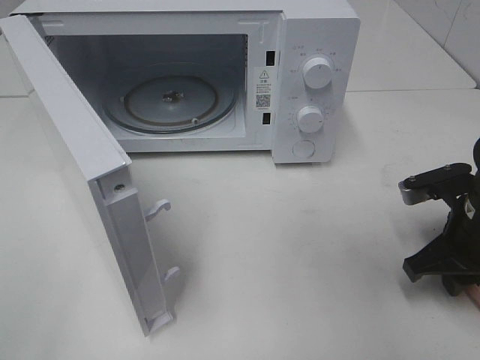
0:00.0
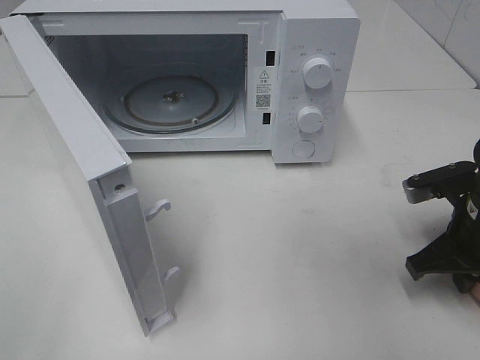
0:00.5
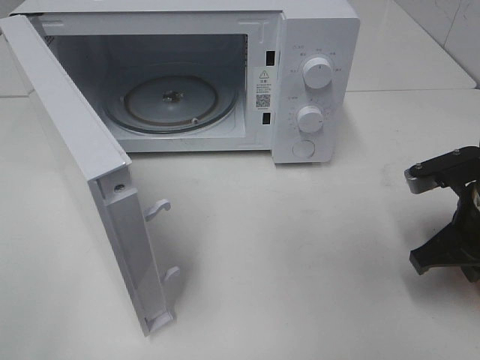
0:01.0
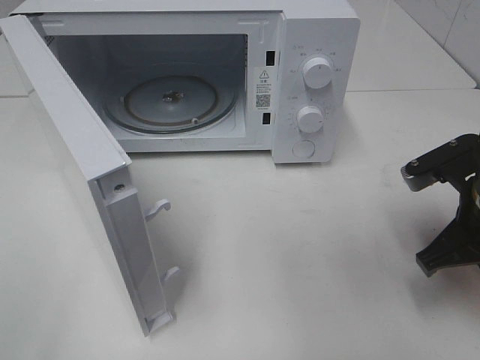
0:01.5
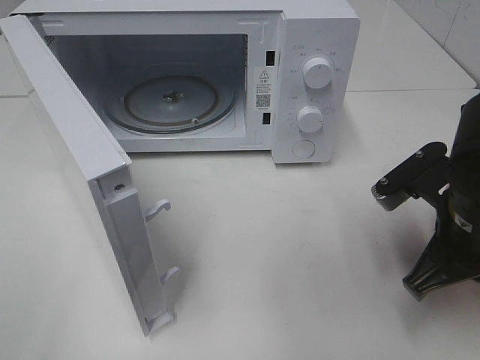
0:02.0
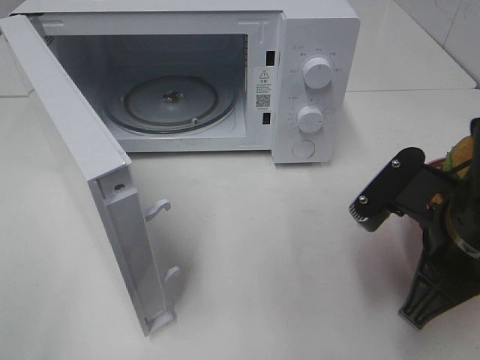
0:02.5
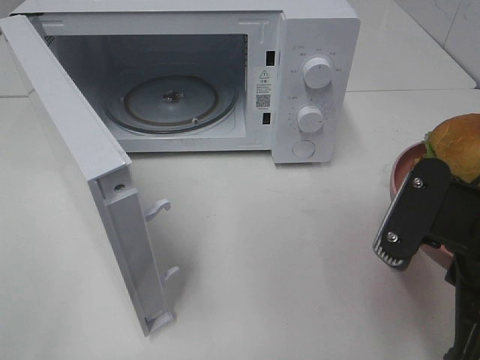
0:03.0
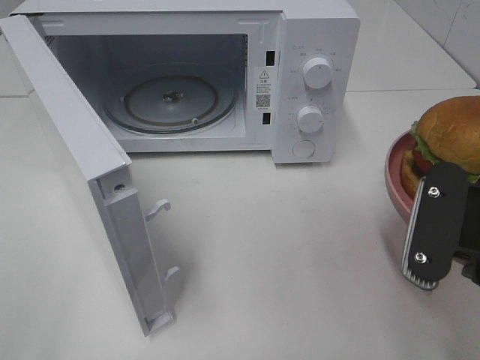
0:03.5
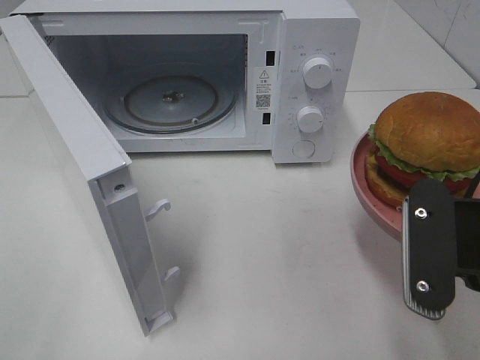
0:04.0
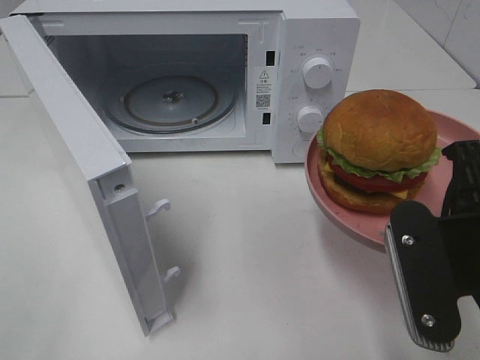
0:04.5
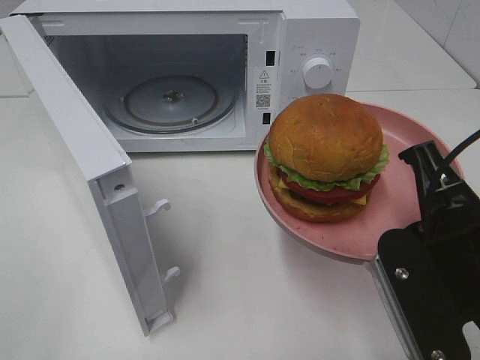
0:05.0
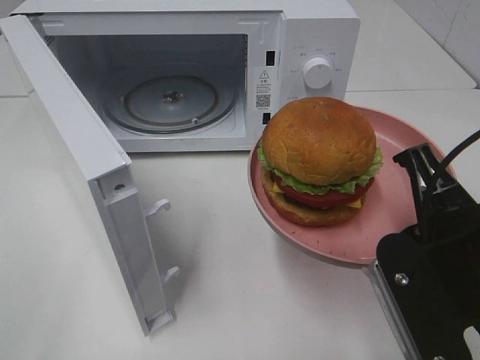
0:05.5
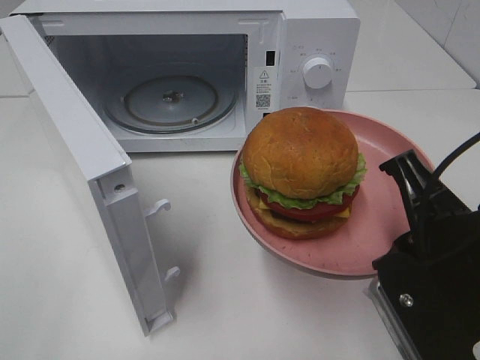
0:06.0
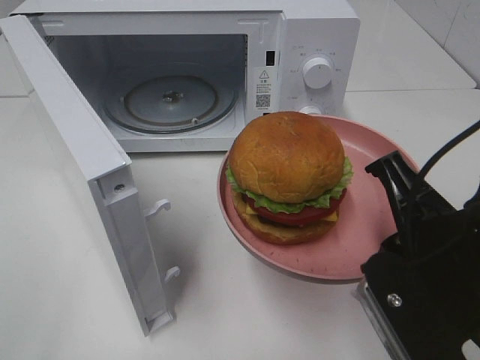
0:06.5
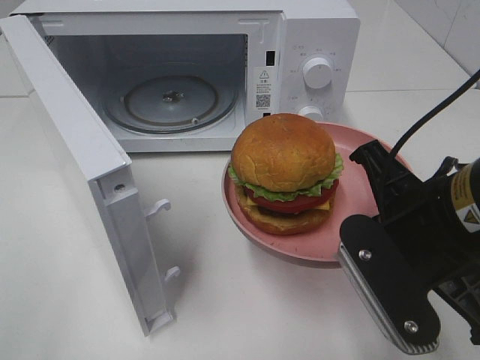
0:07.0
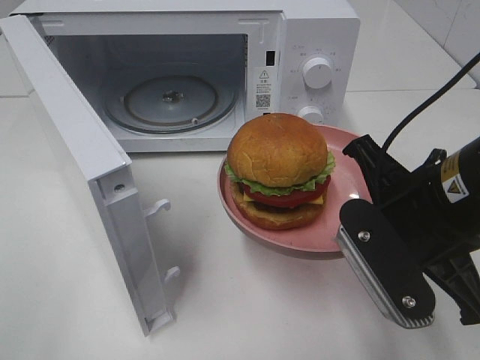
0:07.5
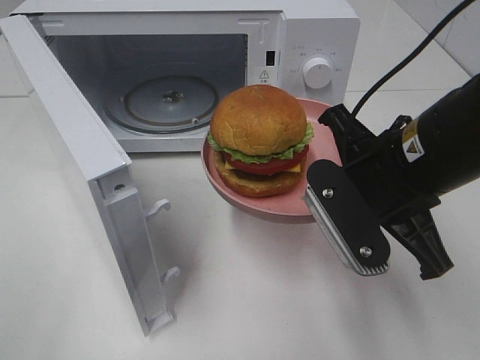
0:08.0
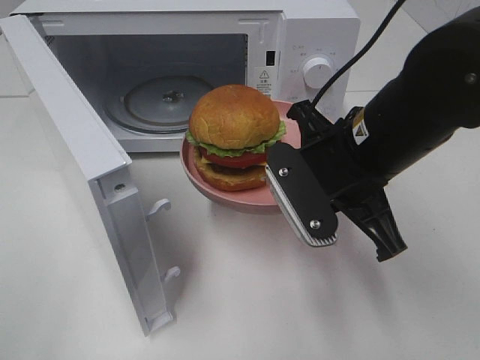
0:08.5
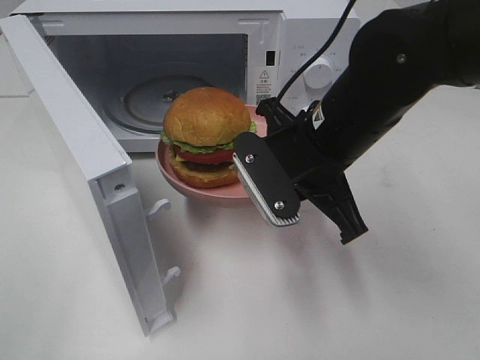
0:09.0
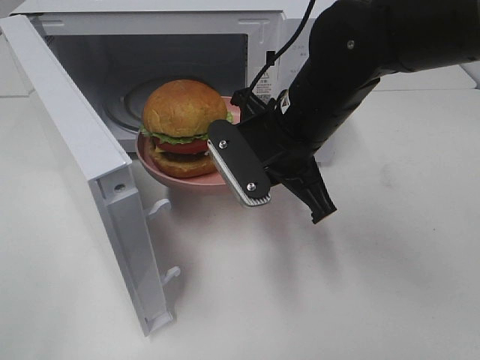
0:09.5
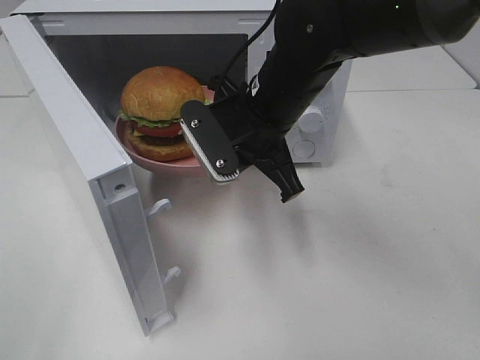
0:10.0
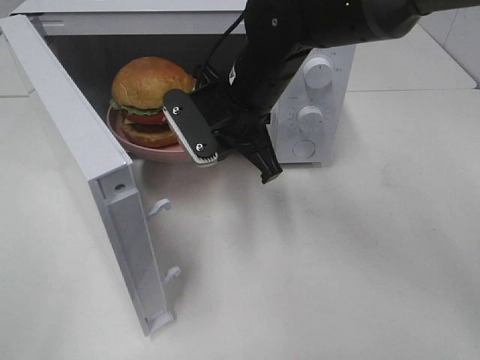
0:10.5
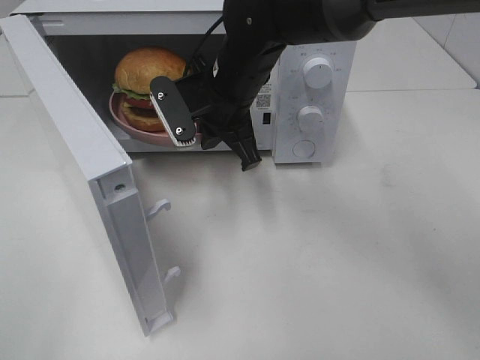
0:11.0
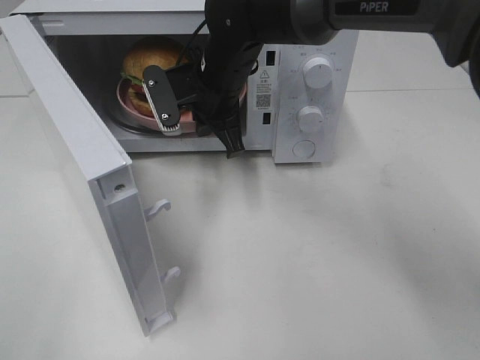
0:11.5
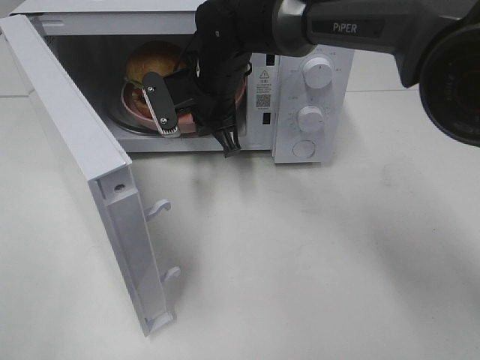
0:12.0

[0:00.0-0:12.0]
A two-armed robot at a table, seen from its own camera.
Task of the whole recording: Heat the burger.
0:00.0 to 0:02.0: The right gripper goes approximately 5 cm to the left.
0:02.0 to 0:04.0: The right gripper moves backward and upward, approximately 10 cm.
0:06.0 to 0:08.0: The right gripper shifts approximately 10 cm forward.
0:08.0 to 0:10.0: The right gripper shifts approximately 15 cm forward and to the left.
0:10.0 to 0:12.0: The right gripper goes some 10 cm forward and to the left.

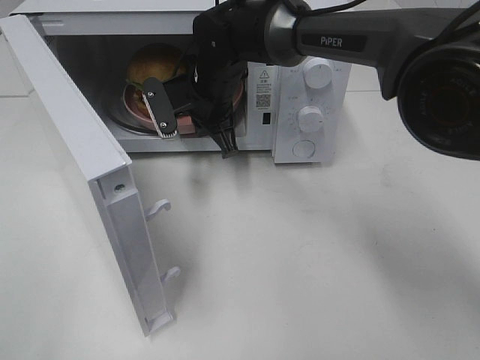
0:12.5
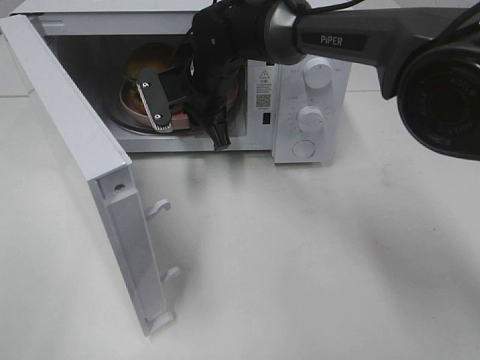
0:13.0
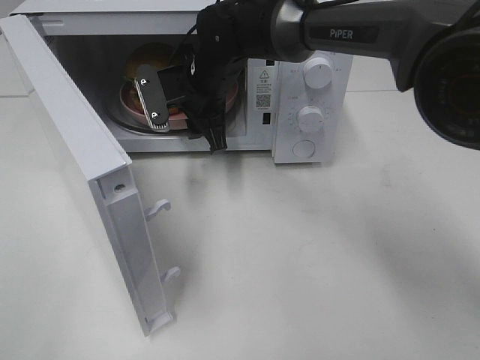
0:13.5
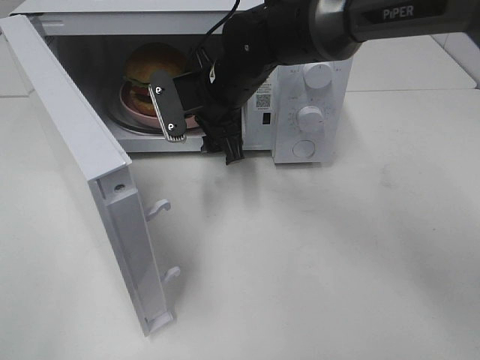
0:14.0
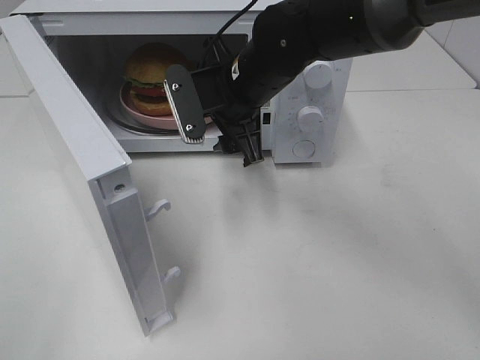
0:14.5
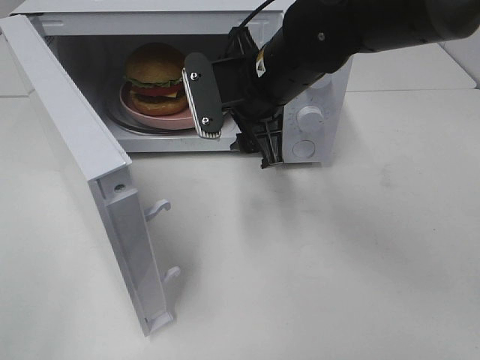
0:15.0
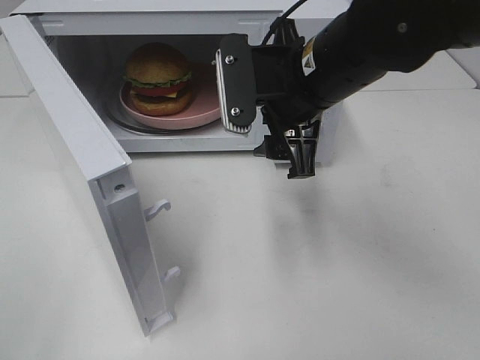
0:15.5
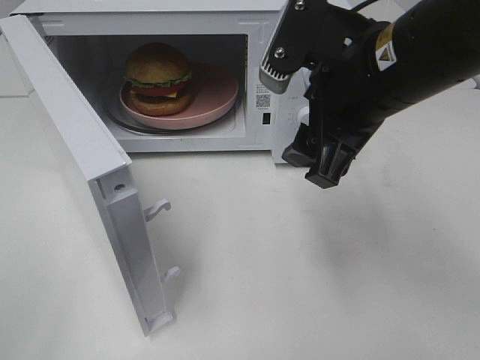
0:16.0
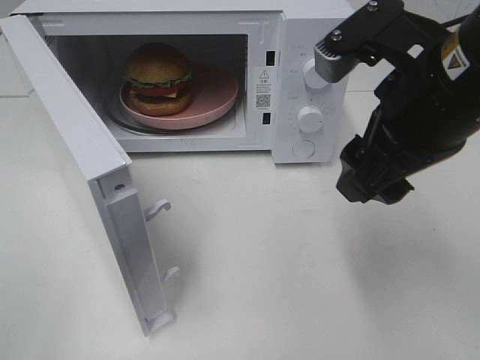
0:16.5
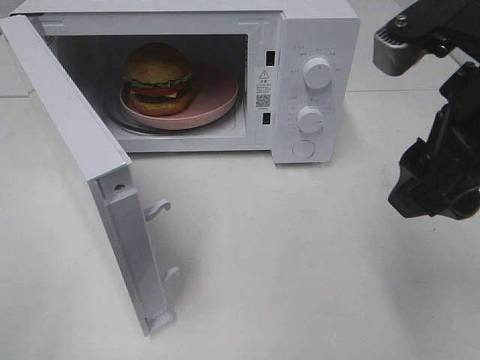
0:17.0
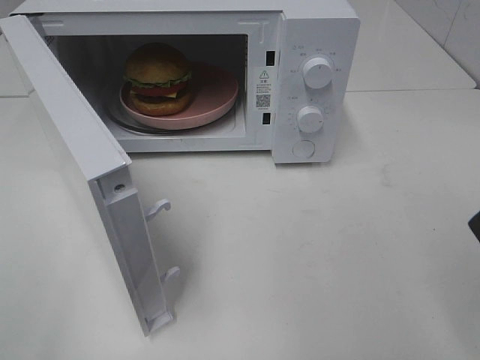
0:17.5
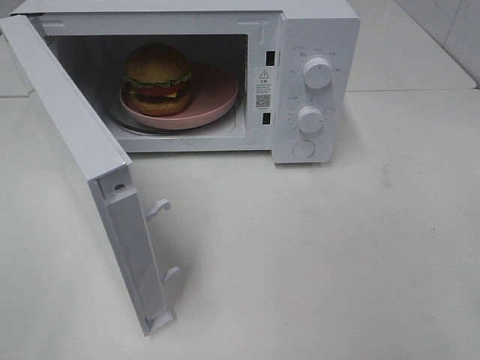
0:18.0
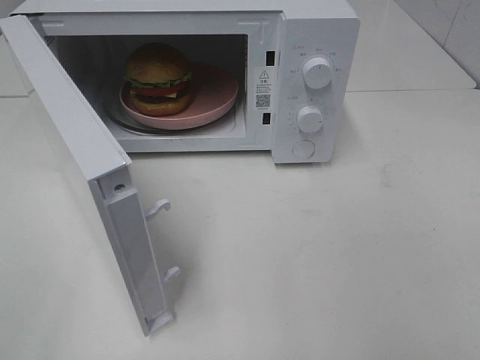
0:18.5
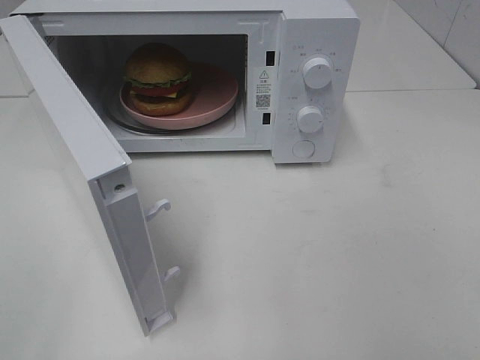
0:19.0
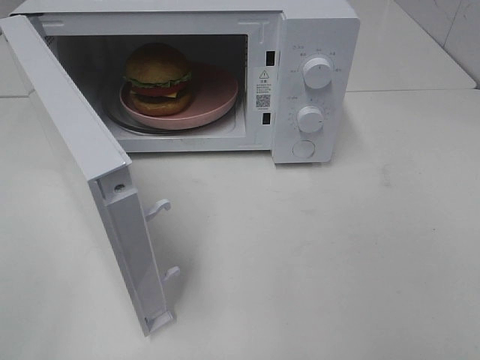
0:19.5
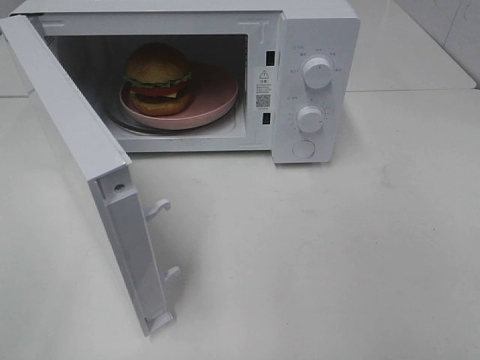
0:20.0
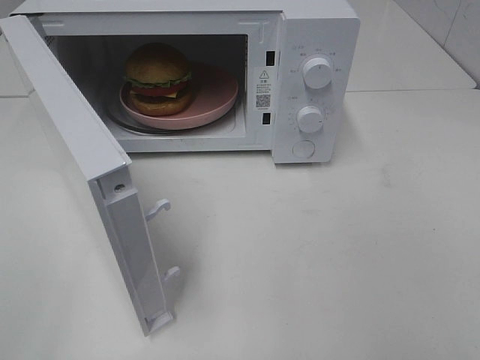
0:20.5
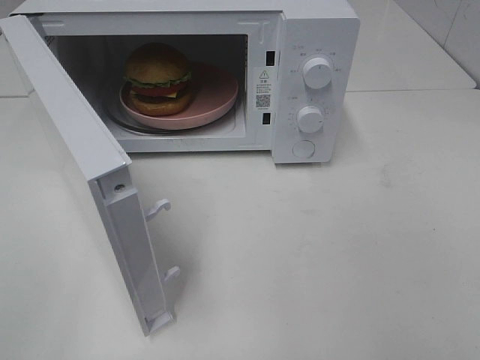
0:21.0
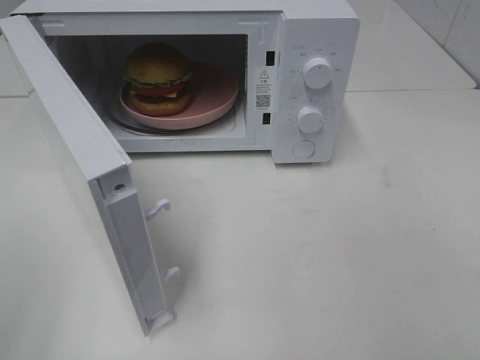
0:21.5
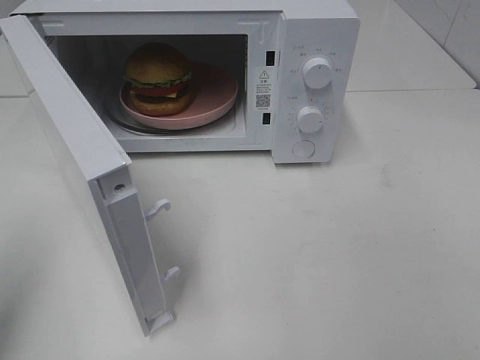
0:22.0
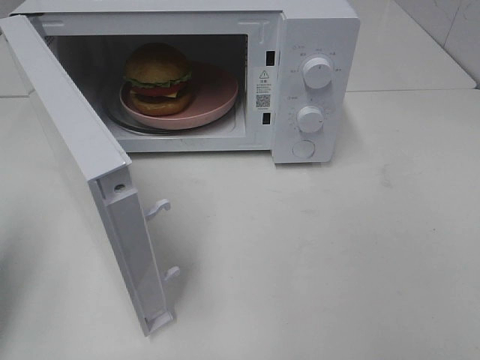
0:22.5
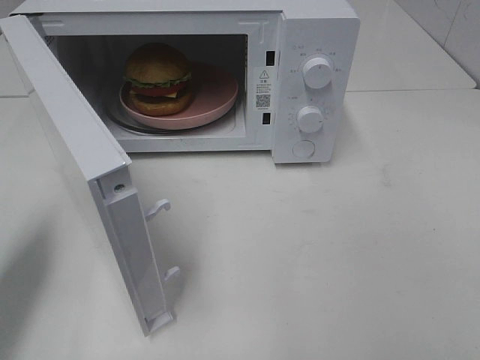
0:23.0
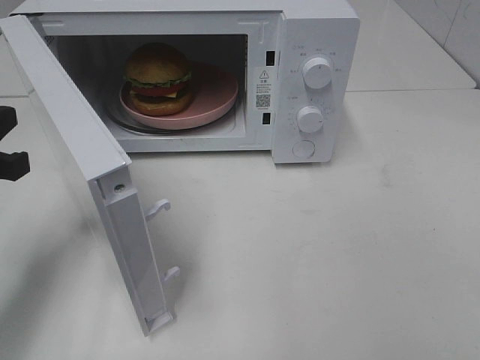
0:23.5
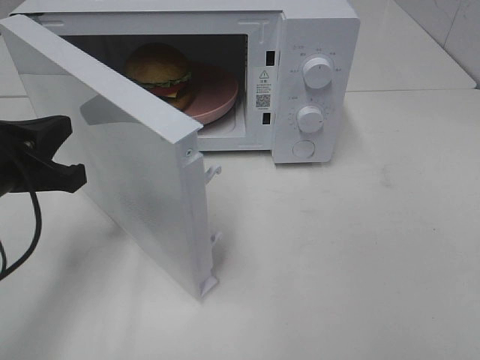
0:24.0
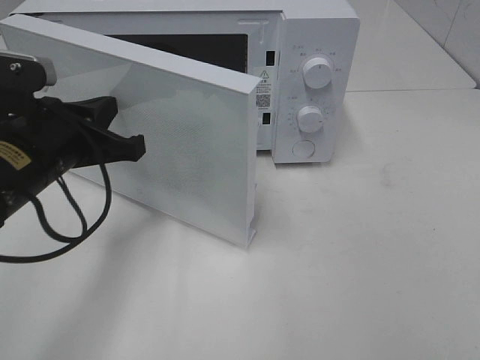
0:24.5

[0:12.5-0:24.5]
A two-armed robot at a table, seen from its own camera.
Task of the whole recording: Heat the burger.
0:12.5 to 0:14.5: The right gripper is displaced backward by about 5 cm, and opens.
0:14.5 to 0:16.5: The right gripper shifts approximately 20 cm backward, to the right and upward.
0:16.5 to 0:18.5: The right gripper travels backward and to the right by approximately 25 cm.
0:20.5 to 0:22.5: The left gripper goes approximately 15 cm forward, and closes up.
0:22.5 to 0:24.5: The left gripper shifts roughly 20 cm to the right, forward and downward.

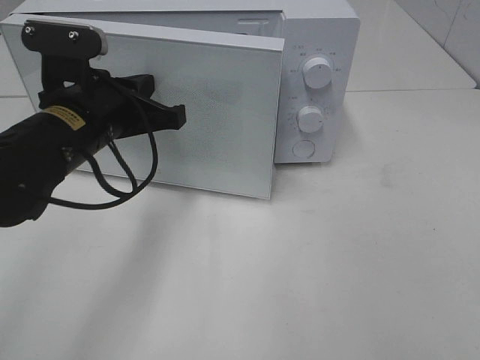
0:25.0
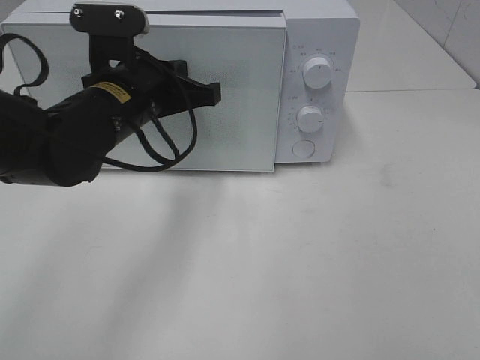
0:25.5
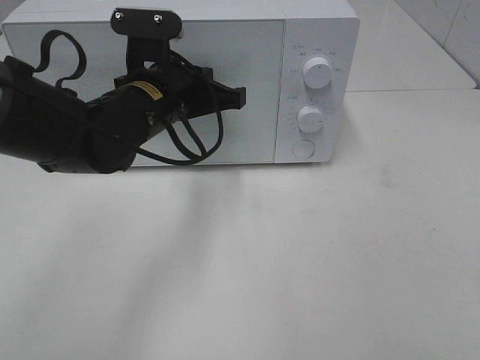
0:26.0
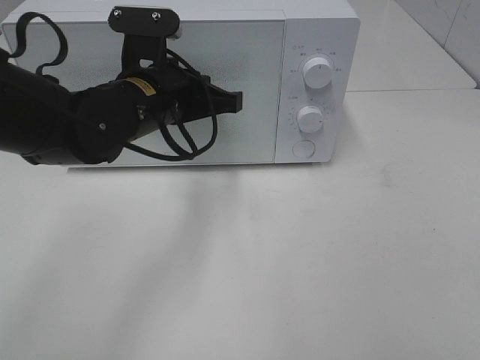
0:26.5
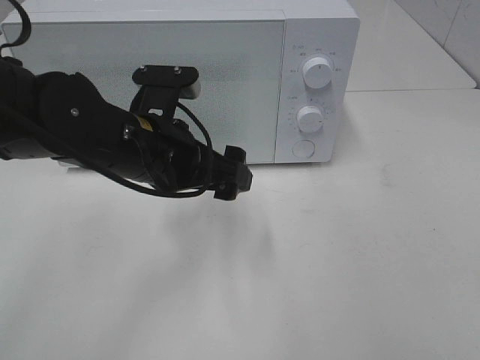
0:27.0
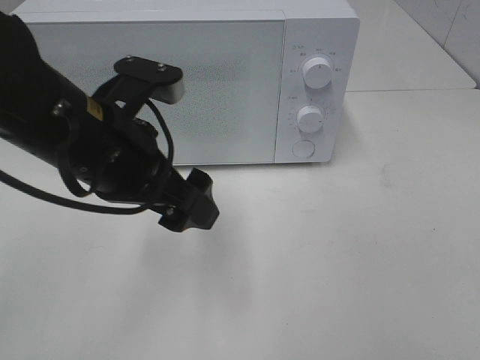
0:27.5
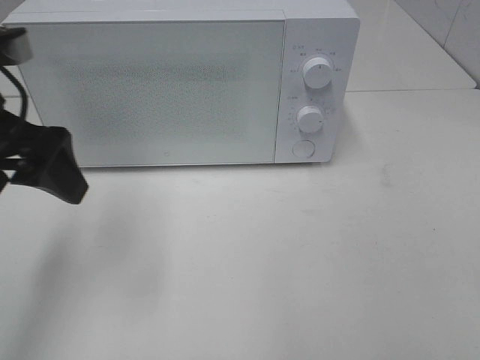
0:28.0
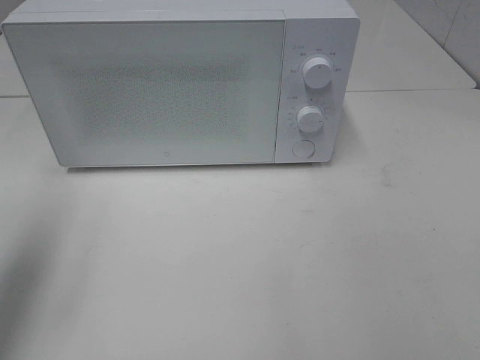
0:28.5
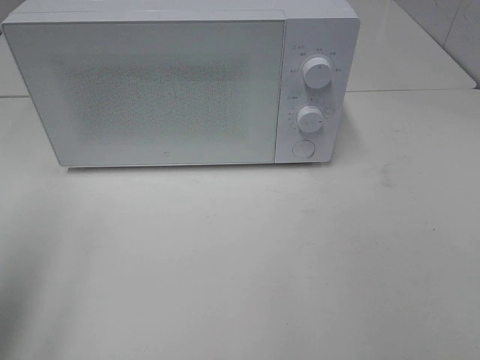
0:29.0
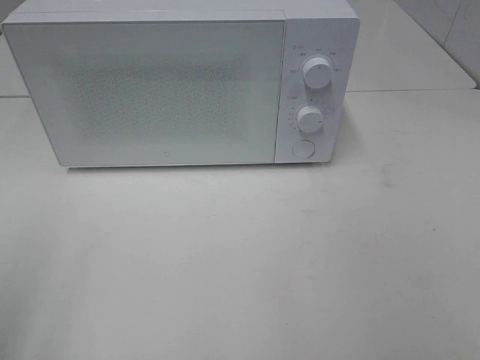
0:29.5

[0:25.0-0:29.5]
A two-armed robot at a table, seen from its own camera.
Task of the whole recording: Heat the burger.
0:25.0 to 0:27.0: The left gripper goes some 5 cm to the right, and opens up.
0:27.0 to 0:29.5: The left gripper is displaced to the left, backward and upward by approximately 35 cm.
